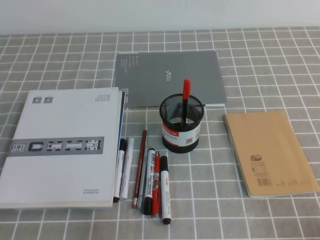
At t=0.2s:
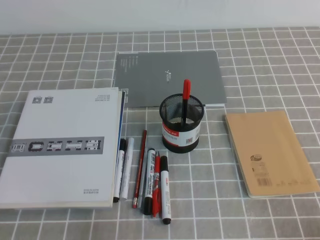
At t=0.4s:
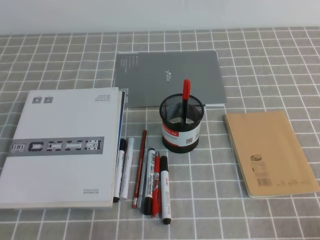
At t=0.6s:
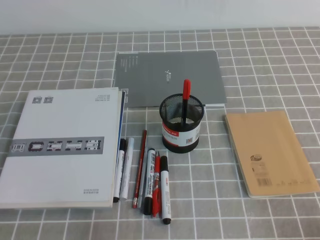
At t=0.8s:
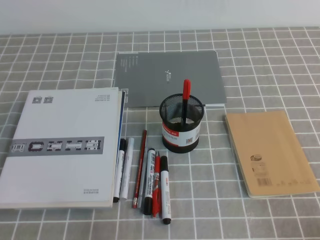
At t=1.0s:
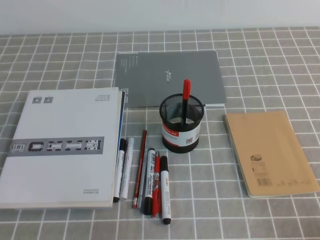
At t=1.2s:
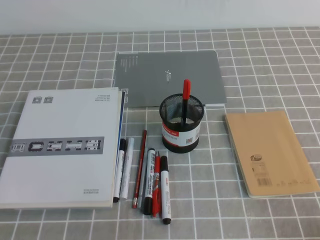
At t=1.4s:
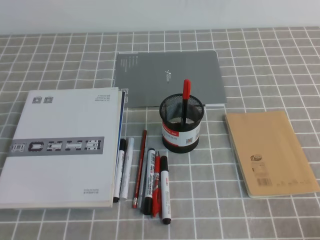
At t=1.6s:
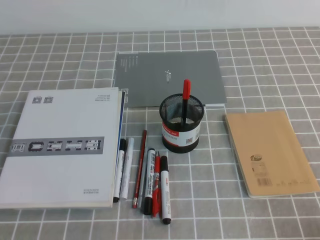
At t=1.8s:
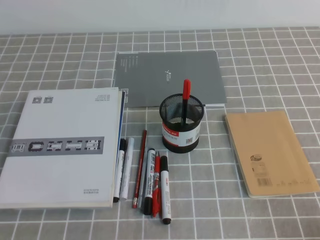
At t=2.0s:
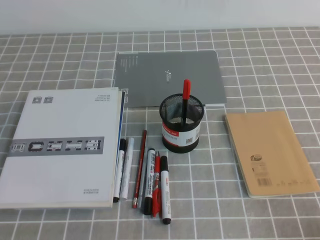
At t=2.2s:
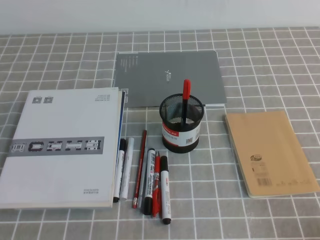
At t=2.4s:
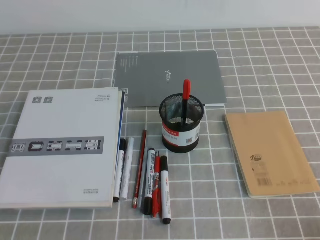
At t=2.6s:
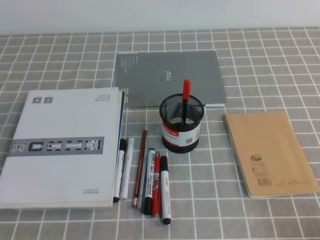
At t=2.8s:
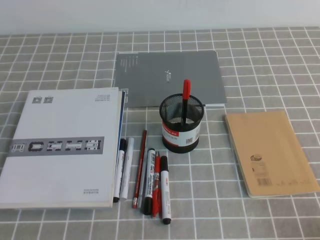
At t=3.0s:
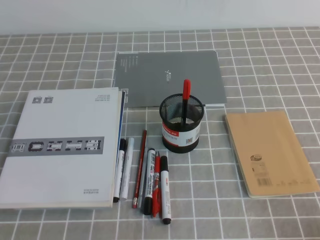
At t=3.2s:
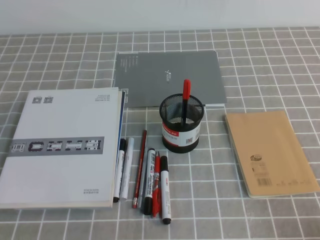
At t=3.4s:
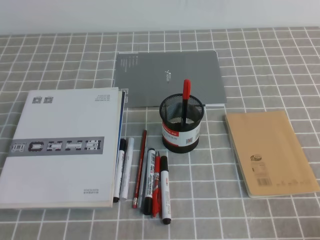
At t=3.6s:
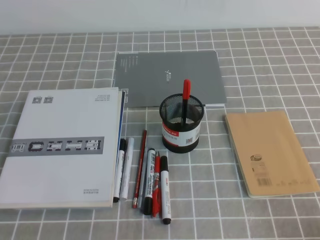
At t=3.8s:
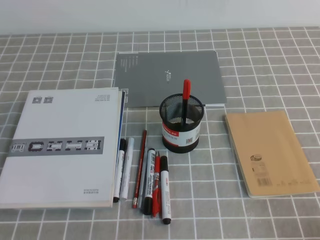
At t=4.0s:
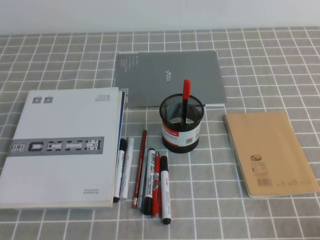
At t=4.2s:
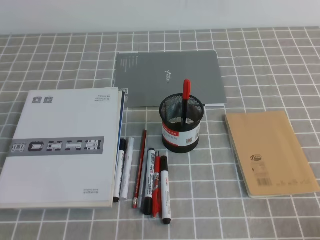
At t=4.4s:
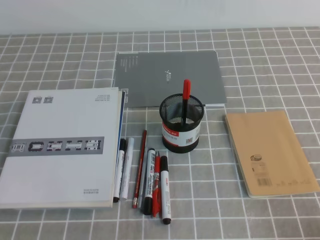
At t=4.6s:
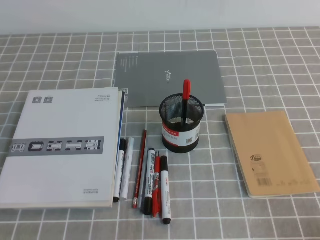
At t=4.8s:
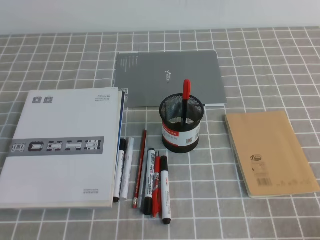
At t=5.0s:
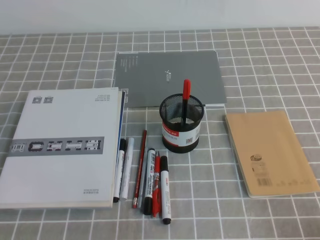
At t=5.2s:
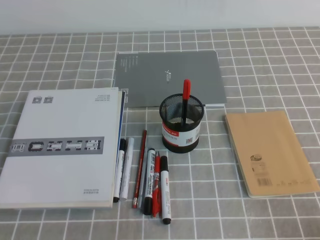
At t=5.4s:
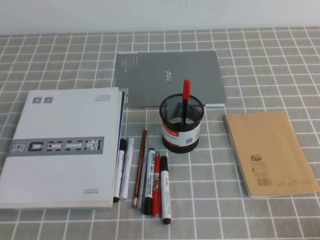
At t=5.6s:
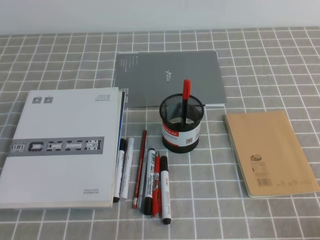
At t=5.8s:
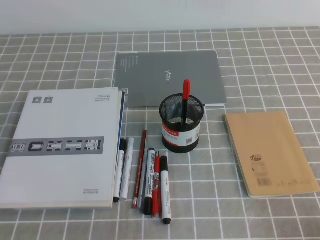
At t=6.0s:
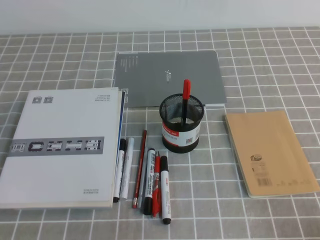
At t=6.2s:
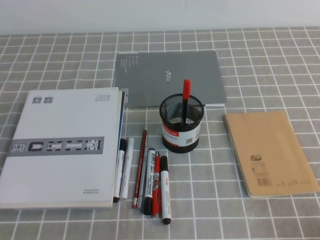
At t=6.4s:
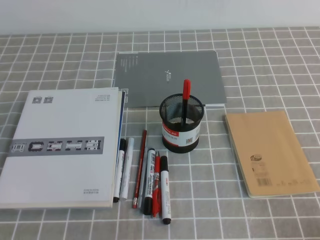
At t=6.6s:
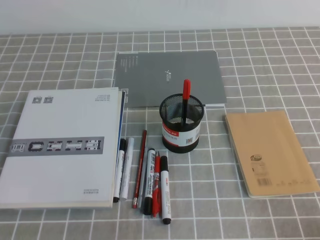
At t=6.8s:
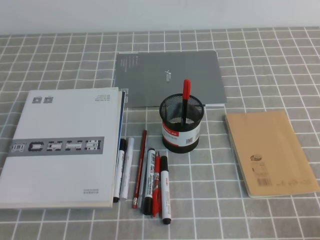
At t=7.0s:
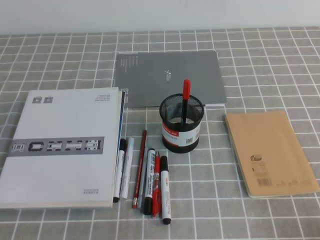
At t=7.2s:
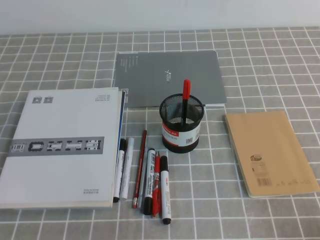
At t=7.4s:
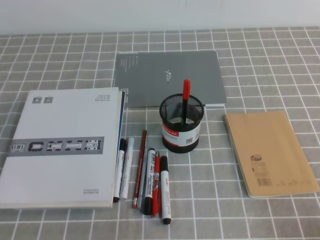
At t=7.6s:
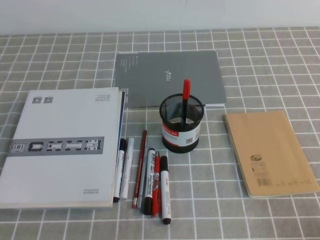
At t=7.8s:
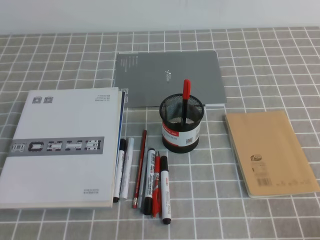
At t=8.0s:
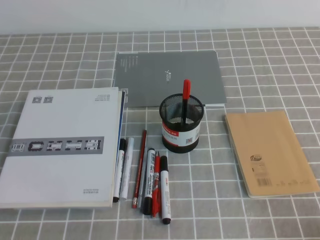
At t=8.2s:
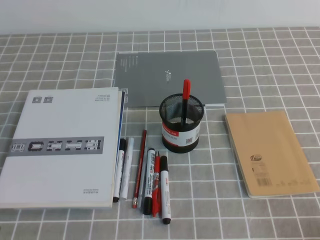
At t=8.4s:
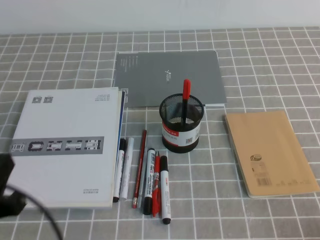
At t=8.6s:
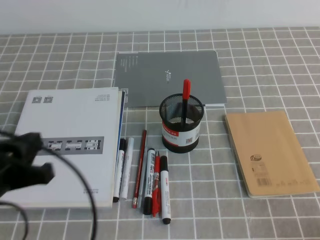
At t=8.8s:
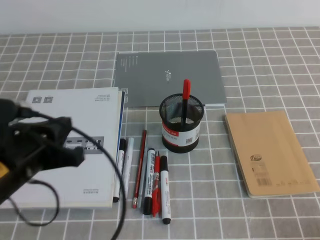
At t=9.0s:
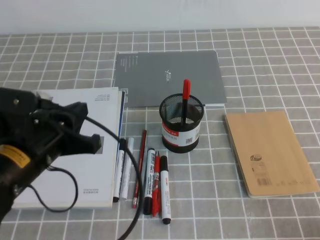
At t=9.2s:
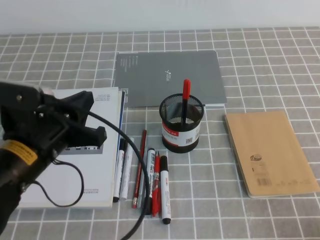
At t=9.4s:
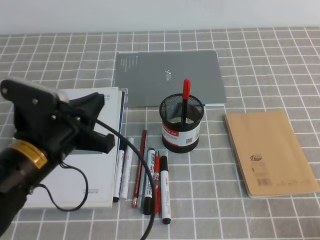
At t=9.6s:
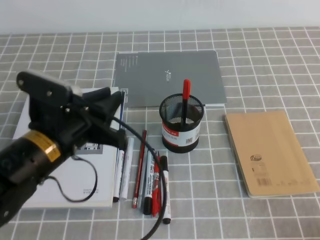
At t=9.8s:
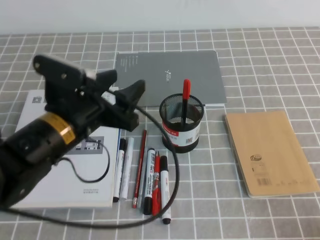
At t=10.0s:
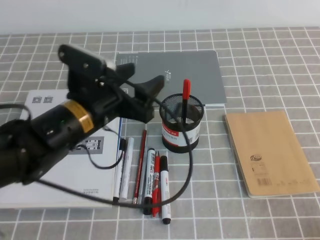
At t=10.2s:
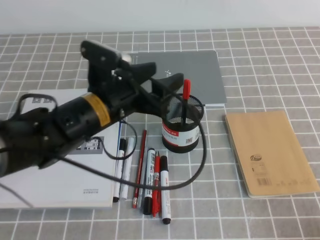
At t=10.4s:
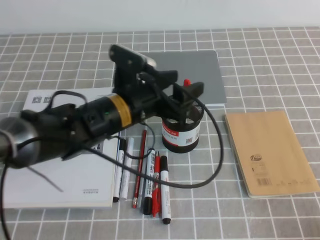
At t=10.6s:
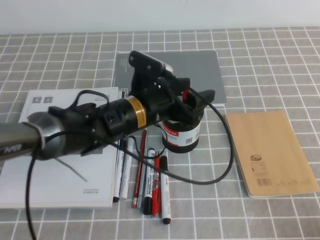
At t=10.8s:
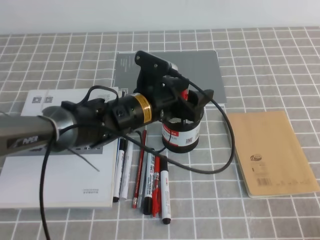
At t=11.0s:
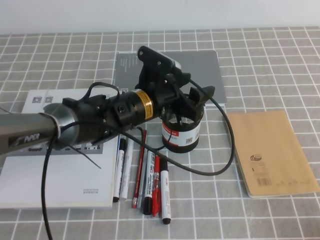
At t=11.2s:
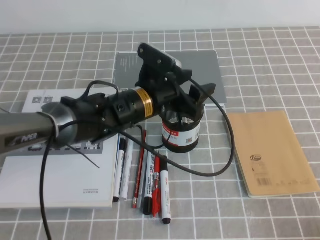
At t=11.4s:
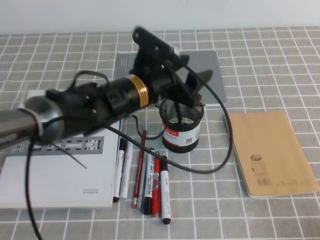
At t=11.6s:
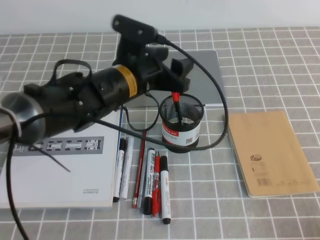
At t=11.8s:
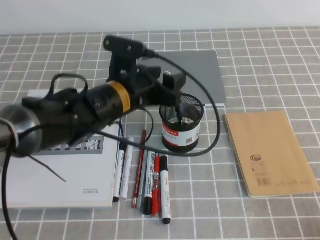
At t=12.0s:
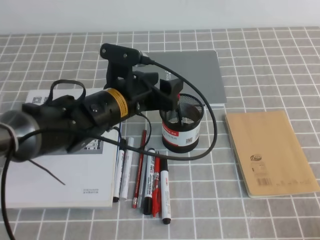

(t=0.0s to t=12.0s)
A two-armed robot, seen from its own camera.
t=1.6s - t=3.0s: Both grippers stay about where they are.
t=6.0s - t=7.6s: The two grippers keep their place.
t=7.6s - t=9.0s: The left gripper shifts approximately 20 cm forward, to the right and upward.
t=9.0s - t=10.4s: The left gripper travels to the right and forward by approximately 15 cm, and opens up.

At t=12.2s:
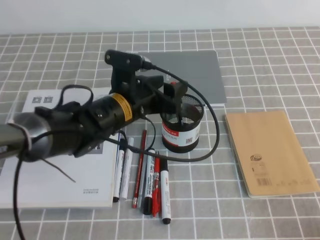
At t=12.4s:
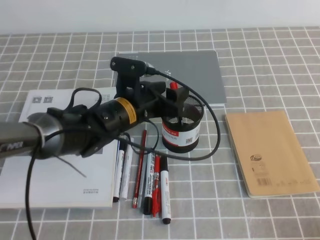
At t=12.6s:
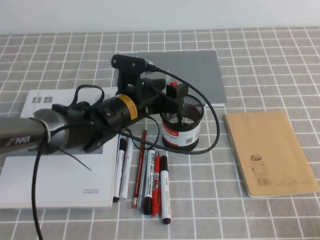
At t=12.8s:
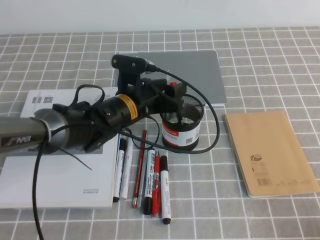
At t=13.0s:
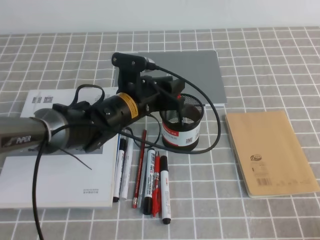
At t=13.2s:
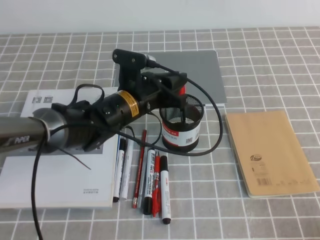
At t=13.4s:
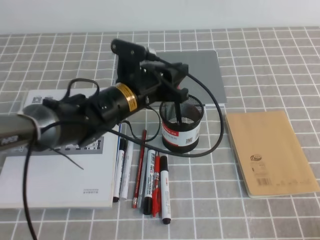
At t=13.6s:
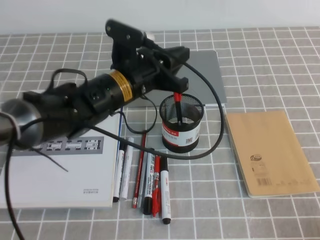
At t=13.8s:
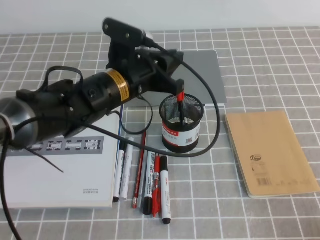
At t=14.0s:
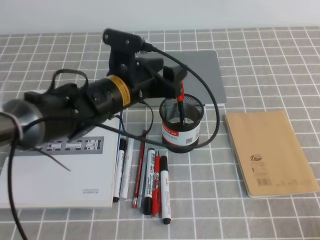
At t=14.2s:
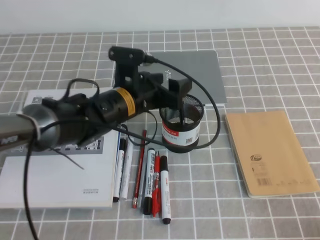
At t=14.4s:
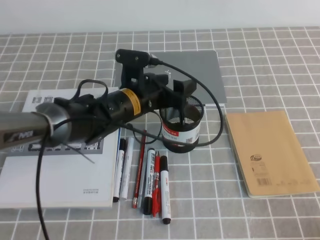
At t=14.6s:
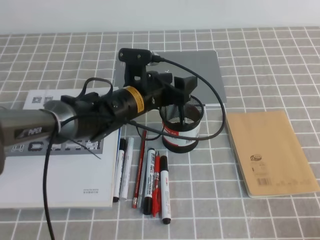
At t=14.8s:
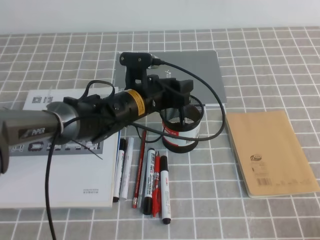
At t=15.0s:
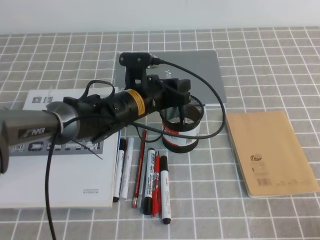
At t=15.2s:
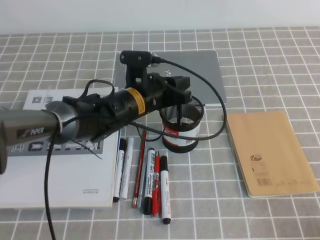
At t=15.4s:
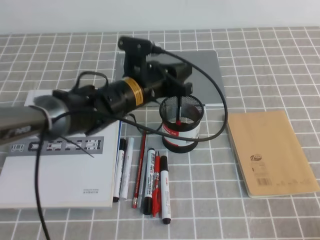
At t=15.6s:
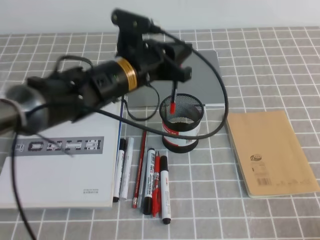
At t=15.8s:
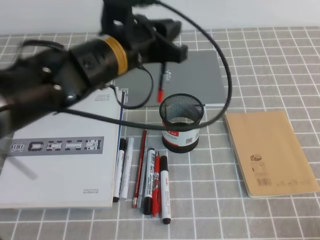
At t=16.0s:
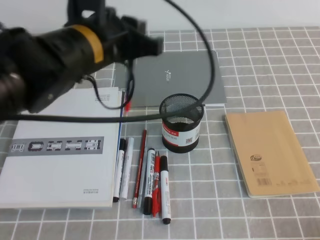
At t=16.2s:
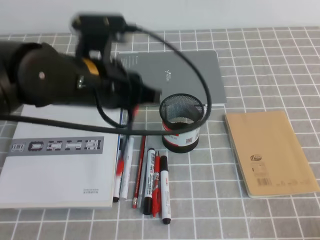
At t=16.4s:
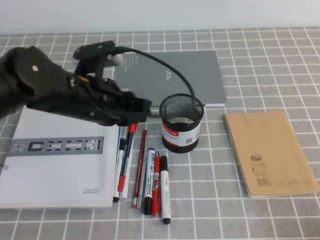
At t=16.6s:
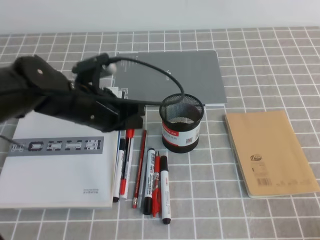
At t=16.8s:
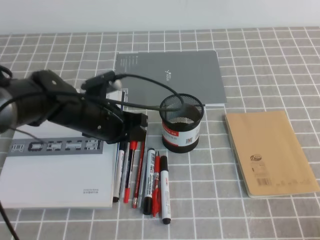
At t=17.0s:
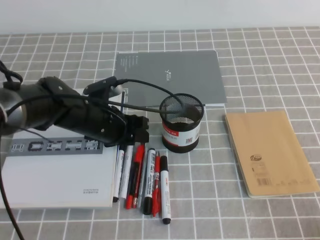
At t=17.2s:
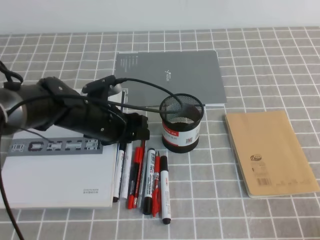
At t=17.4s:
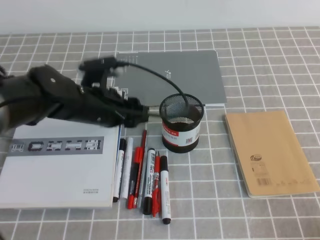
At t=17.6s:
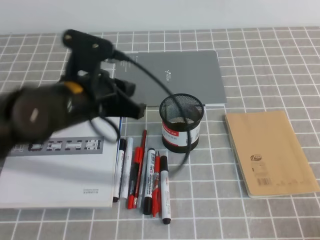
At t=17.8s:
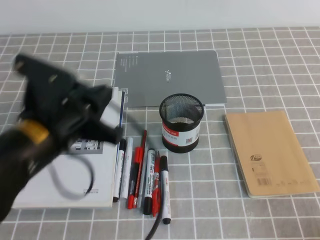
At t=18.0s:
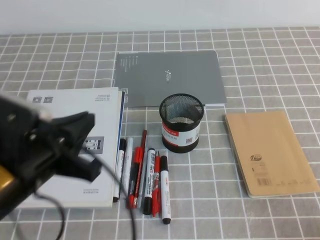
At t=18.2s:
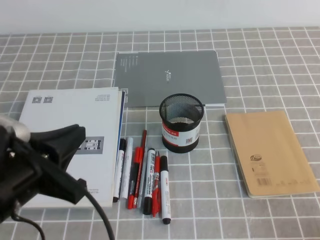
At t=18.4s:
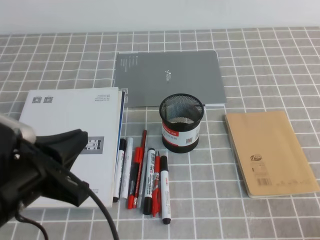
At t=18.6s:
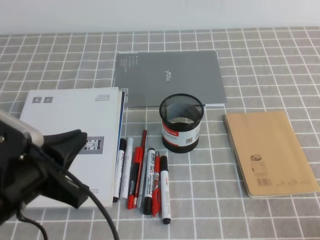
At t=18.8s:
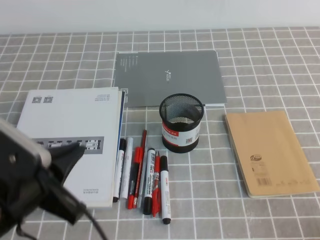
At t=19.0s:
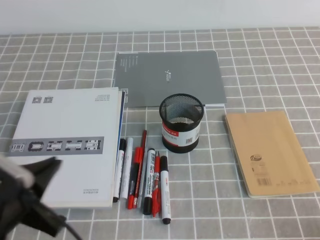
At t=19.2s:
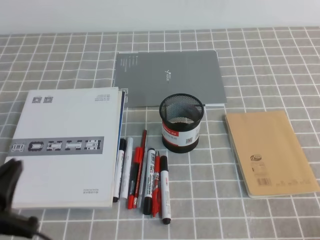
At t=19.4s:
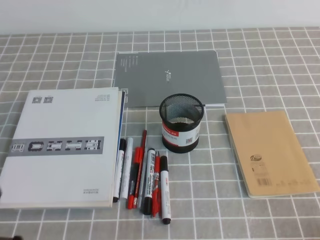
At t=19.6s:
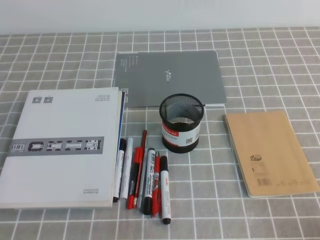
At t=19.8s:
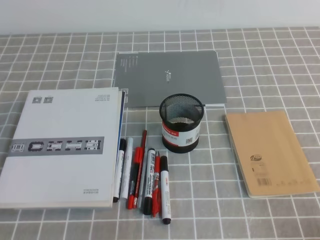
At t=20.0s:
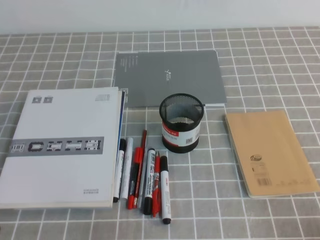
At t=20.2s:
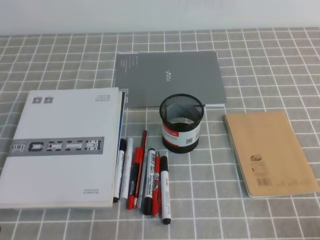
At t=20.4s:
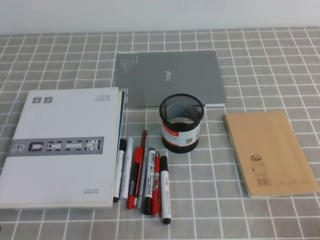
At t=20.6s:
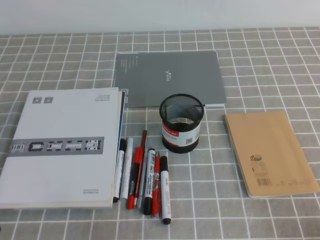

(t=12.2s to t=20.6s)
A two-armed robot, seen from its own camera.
Step, t=12.2s - t=20.6s: Pick up the pen from the pen holder.
t=12.2s - t=13.6s: The left gripper closes.
t=13.6s - t=15.0s: The left gripper moves downward, roughly 5 cm, and opens its fingers.
t=15.0s - t=16.4s: The left gripper travels upward, backward and to the left by roughly 15 cm.
t=16.4s - t=17.8s: The left gripper travels backward by about 5 cm, and opens and closes again.
t=17.8s - t=19.2s: The left gripper is displaced backward, to the left and downward by some 15 cm.
t=19.2s - t=20.6s: The left gripper is displaced downward and backward by about 10 cm.
